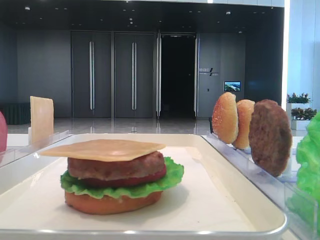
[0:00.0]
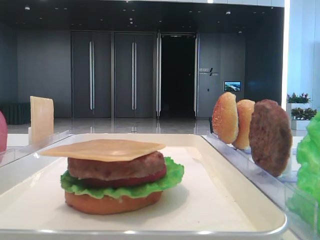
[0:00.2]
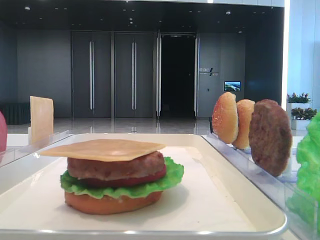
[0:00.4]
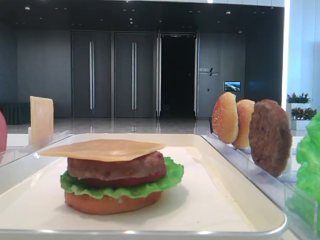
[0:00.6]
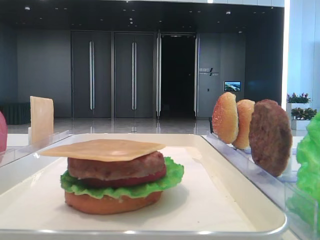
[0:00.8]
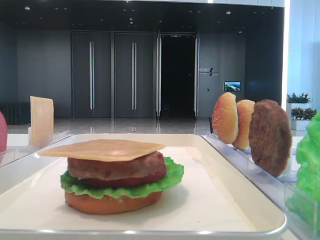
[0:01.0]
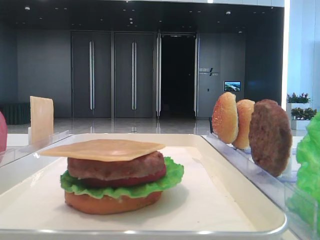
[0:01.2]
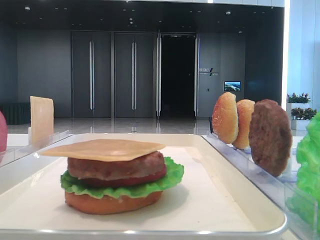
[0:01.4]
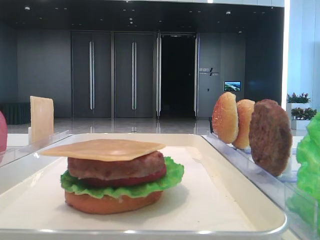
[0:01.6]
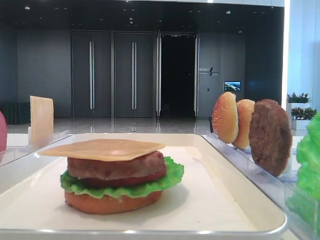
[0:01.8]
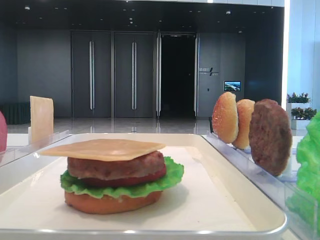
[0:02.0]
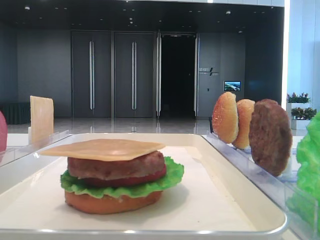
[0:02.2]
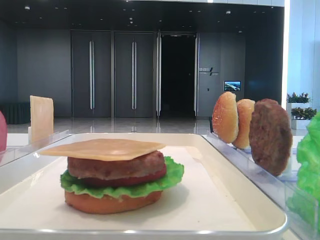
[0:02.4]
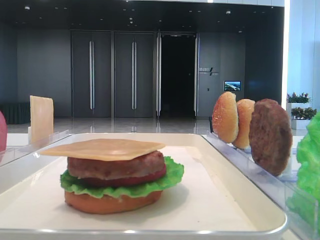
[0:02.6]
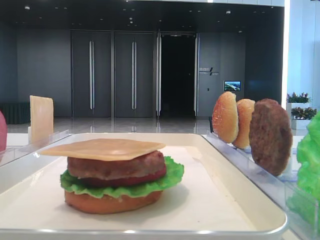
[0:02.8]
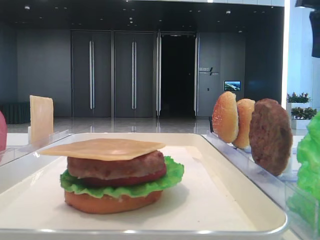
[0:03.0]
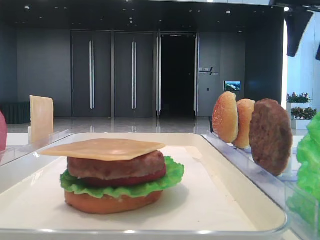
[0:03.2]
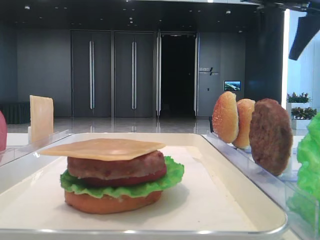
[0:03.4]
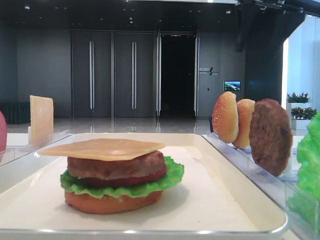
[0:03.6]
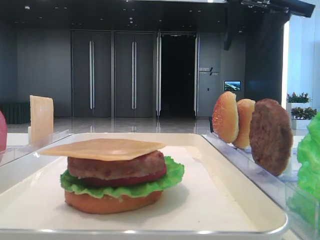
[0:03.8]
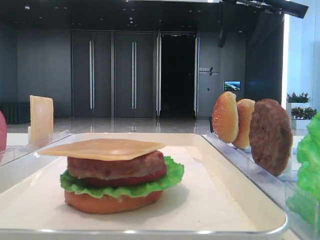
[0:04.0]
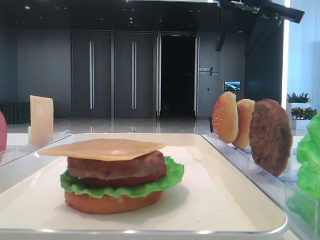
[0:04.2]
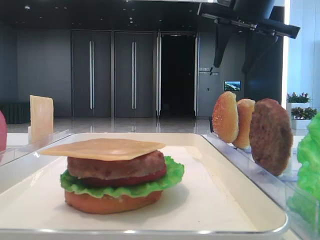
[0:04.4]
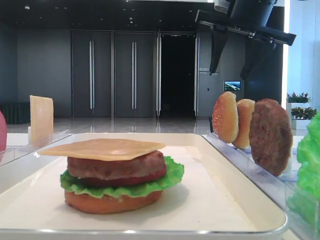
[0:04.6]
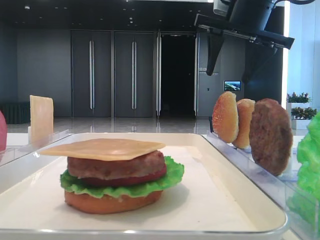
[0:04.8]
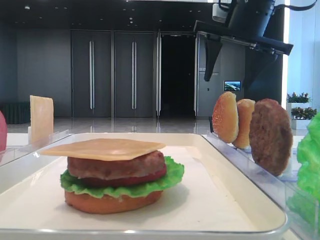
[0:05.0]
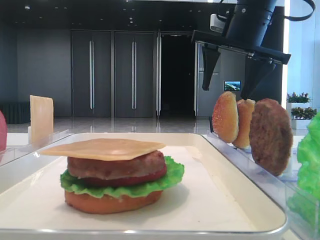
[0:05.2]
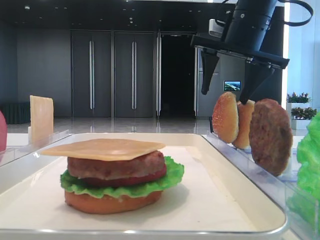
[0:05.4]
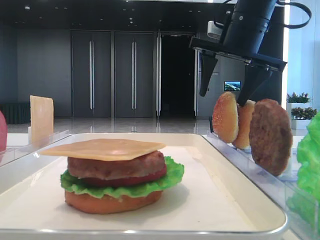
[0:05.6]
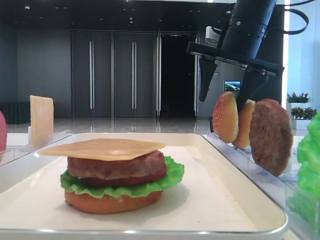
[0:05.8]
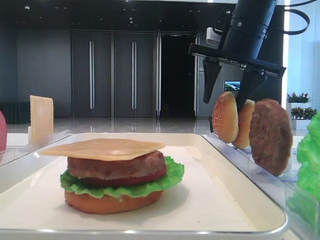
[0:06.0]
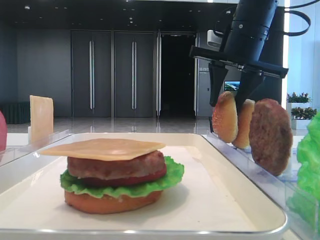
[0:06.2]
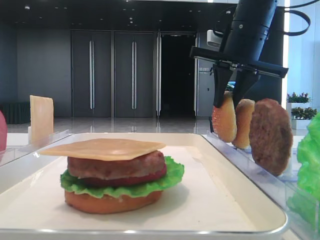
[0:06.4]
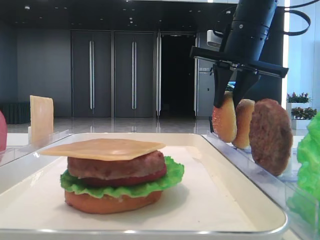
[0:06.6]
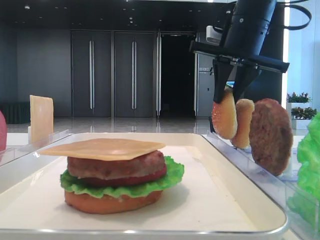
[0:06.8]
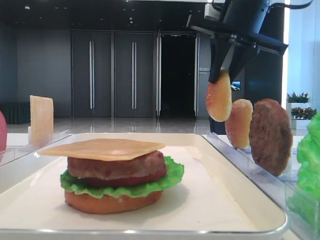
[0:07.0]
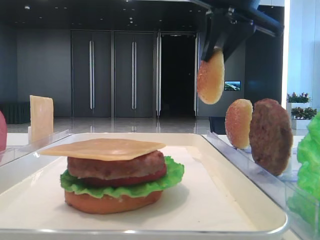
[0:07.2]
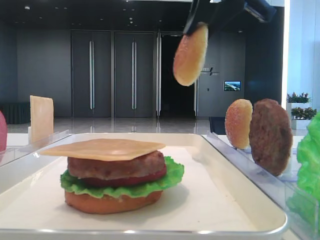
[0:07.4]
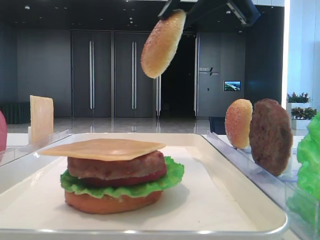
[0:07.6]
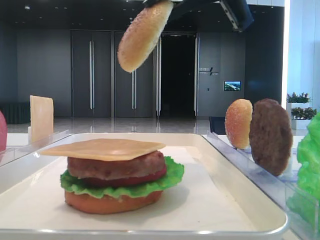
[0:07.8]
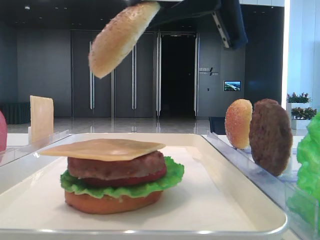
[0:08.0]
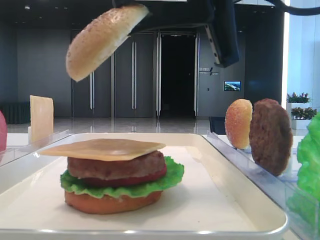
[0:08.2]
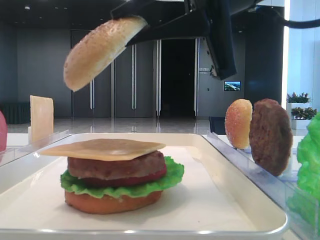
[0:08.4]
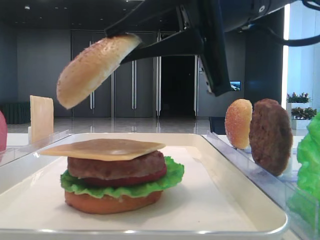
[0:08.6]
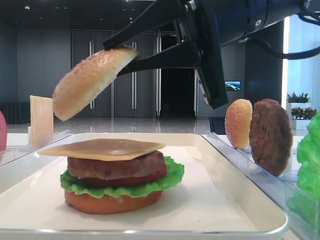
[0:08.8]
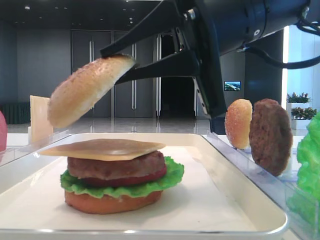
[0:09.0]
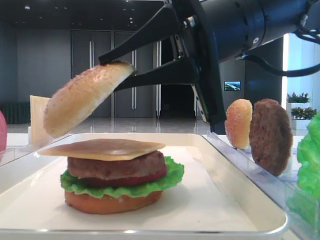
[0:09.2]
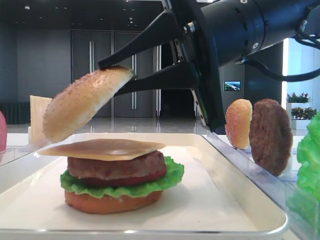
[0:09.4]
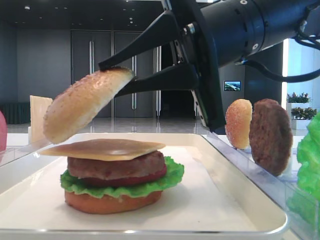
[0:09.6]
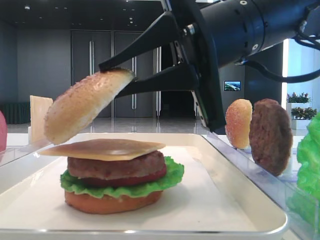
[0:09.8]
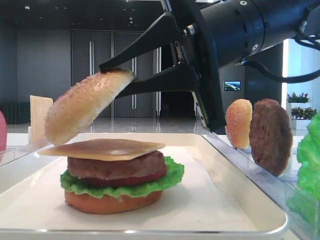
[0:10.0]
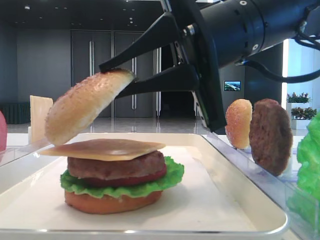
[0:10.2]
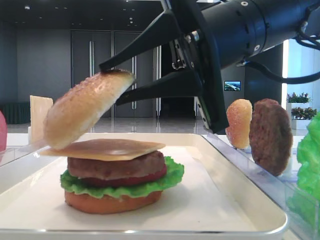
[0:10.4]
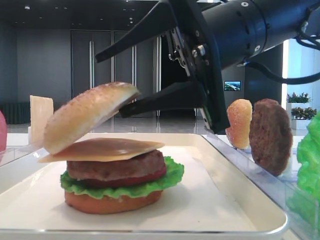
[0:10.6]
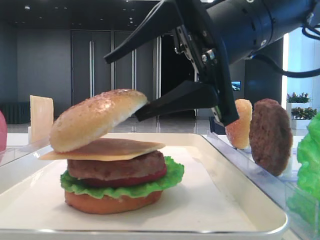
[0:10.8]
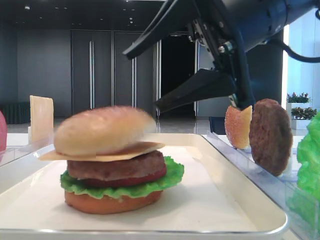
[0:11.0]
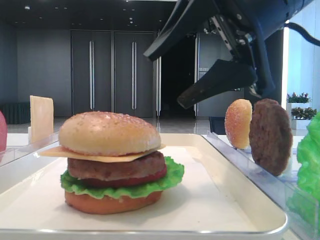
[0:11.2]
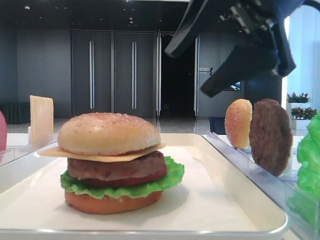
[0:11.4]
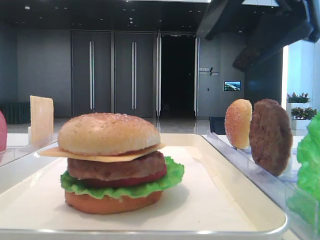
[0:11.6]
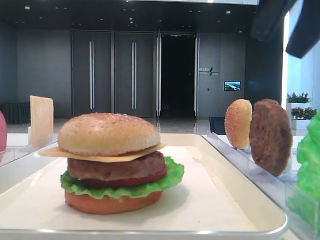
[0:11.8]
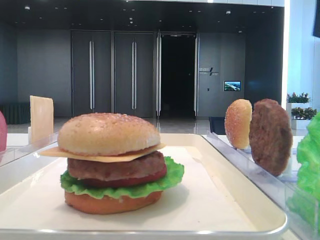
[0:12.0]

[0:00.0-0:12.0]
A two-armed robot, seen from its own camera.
Step, 0:00.0 to 0:06.4: Pick up the top bread slice with the right hand.
Step, 0:06.8 to 0:11.0: Place the top bread slice on the cheese with the right hand.
0:01.6 to 0:03.0: The right gripper heads forward, covering roughly 25 cm.
0:03.0 to 0:04.4: The right gripper moves to the left, approximately 15 cm.
0:04.4 to 0:06.0: The right gripper shifts about 5 cm downward.
0:06.0 to 0:07.6: The right gripper heads backward and upward, covering some 15 cm, and closes its fingers.
0:07.6 to 0:09.0: The right gripper shifts some 15 cm downward and backward.
0:09.0 to 0:10.4: Both grippers stay about where they are.
0:10.4 to 0:12.0: The right gripper is displaced to the right and upward by some 20 cm, and opens.

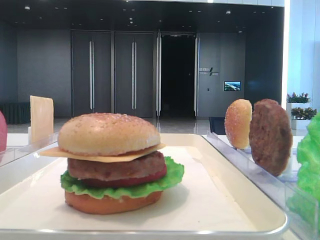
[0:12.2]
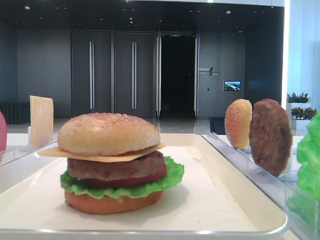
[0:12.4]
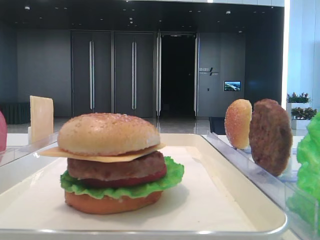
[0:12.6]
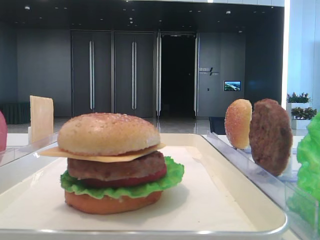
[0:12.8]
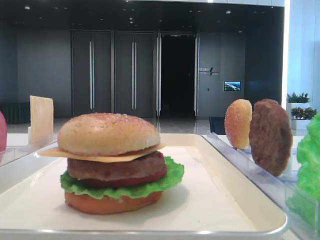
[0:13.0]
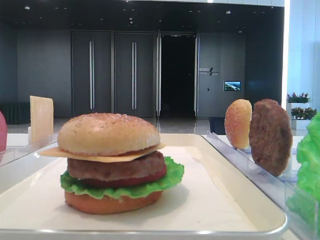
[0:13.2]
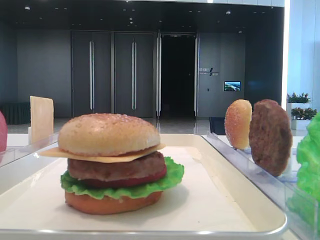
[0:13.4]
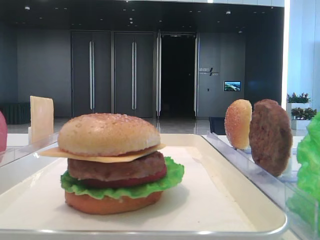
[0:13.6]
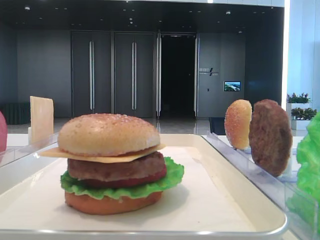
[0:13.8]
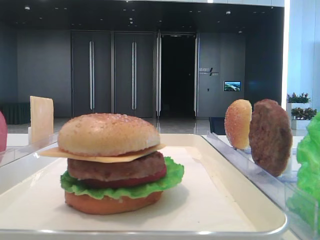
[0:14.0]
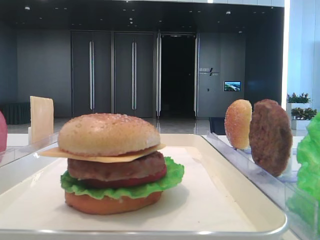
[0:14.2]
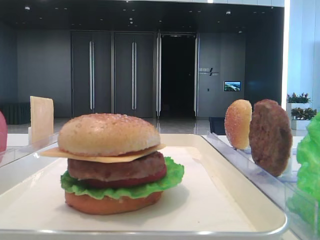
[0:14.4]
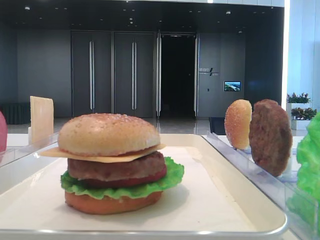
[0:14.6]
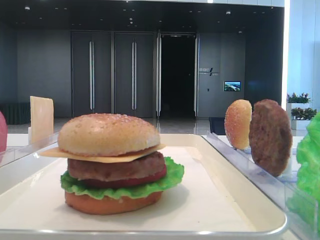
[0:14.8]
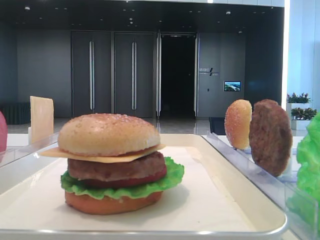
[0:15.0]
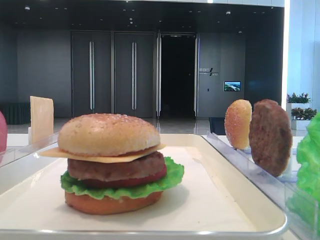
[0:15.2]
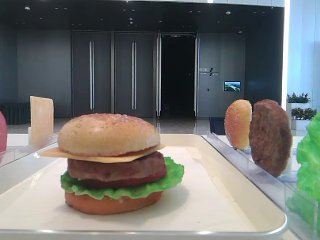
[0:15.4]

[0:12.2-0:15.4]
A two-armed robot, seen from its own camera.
0:12.2 to 0:13.8: The right gripper goes roughly 20 cm backward.

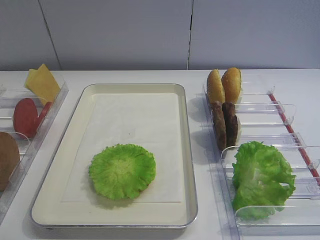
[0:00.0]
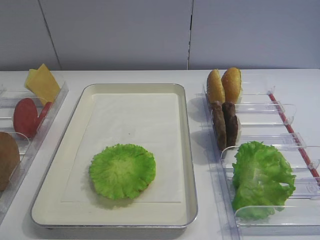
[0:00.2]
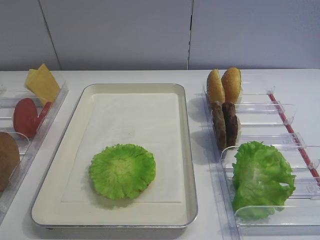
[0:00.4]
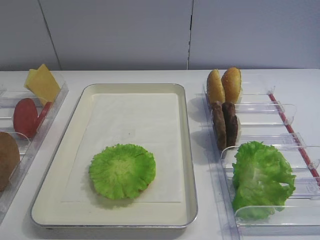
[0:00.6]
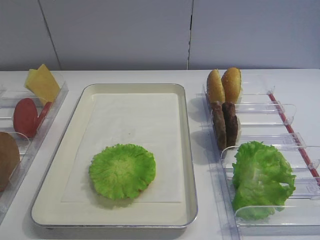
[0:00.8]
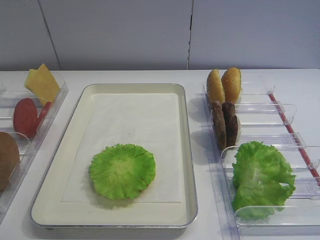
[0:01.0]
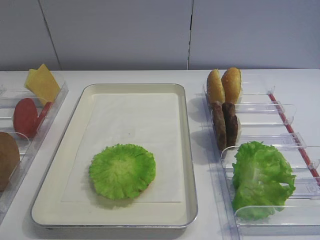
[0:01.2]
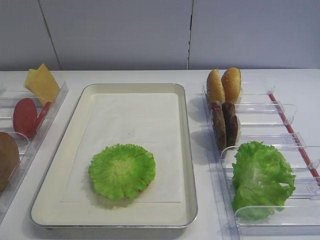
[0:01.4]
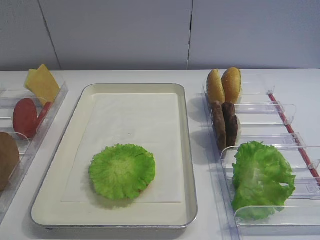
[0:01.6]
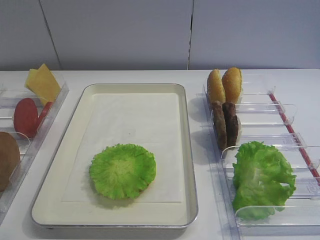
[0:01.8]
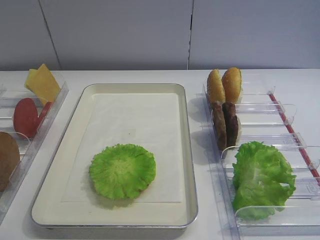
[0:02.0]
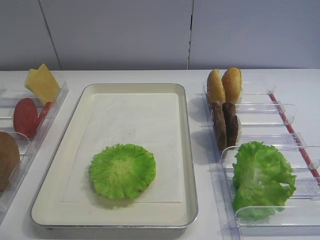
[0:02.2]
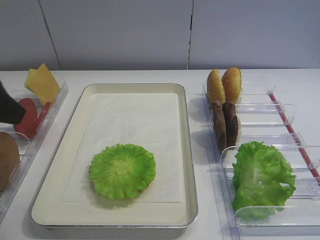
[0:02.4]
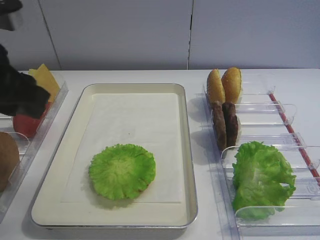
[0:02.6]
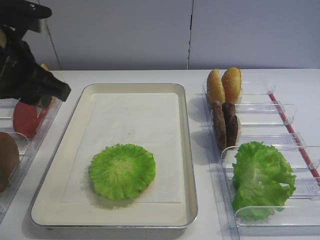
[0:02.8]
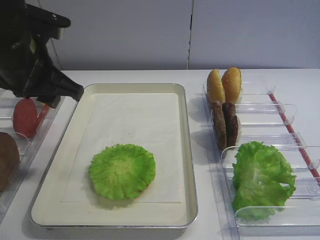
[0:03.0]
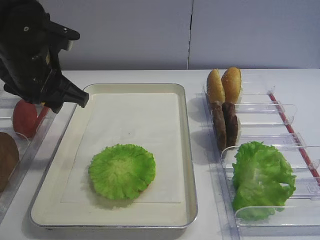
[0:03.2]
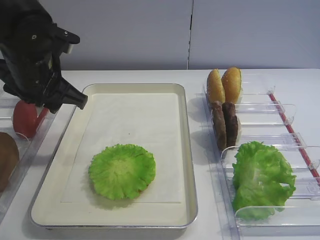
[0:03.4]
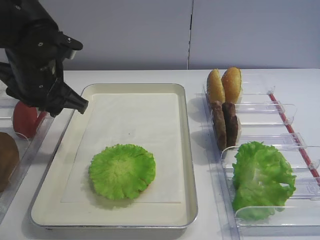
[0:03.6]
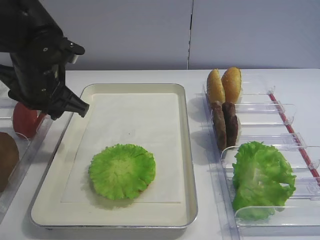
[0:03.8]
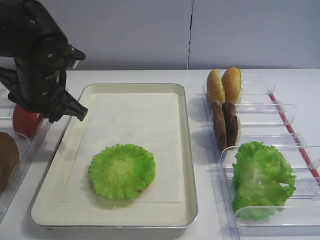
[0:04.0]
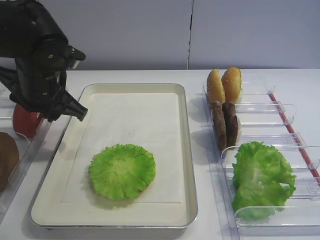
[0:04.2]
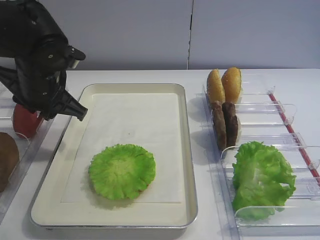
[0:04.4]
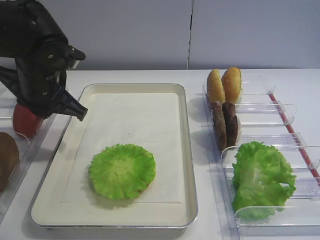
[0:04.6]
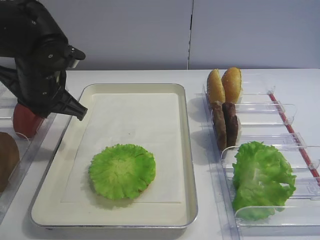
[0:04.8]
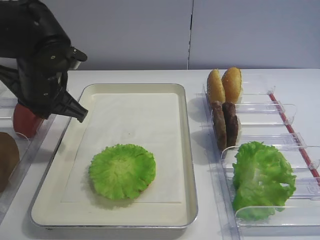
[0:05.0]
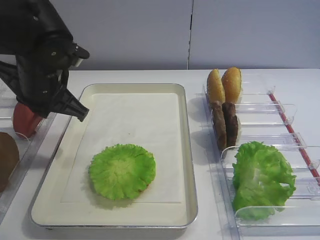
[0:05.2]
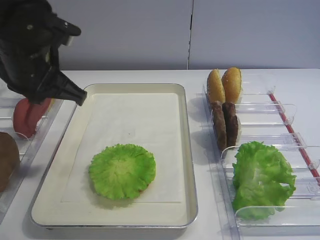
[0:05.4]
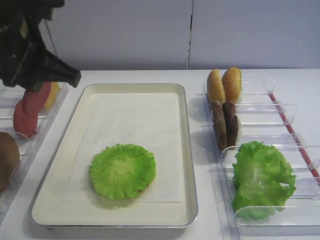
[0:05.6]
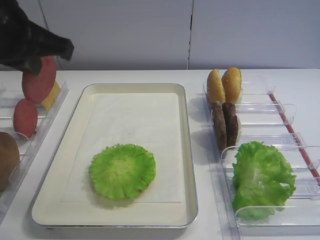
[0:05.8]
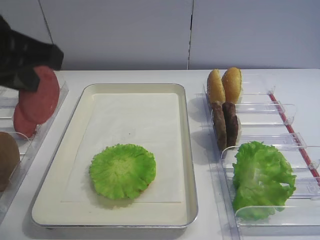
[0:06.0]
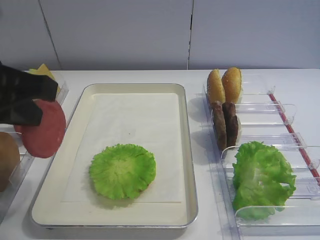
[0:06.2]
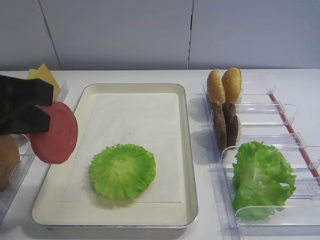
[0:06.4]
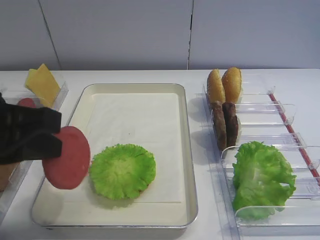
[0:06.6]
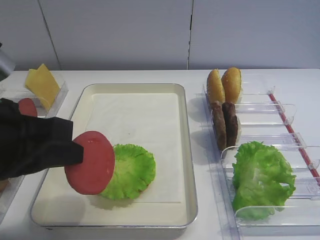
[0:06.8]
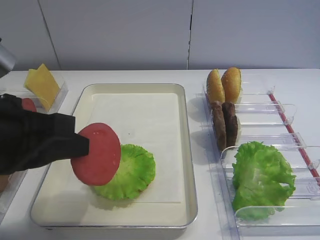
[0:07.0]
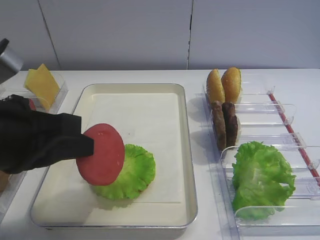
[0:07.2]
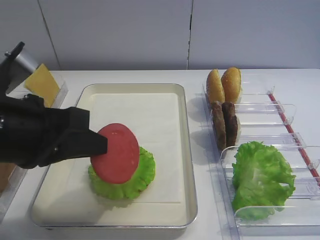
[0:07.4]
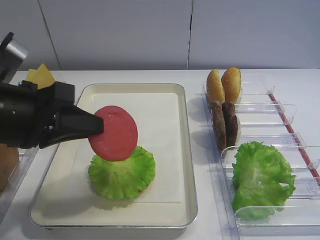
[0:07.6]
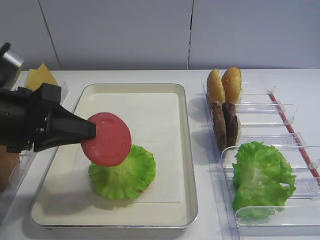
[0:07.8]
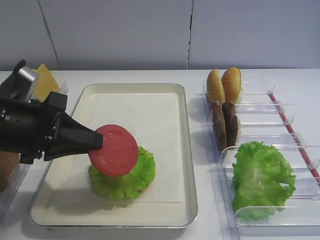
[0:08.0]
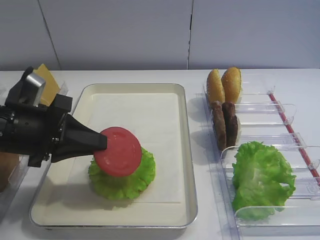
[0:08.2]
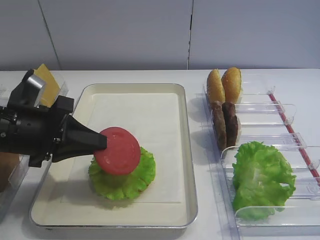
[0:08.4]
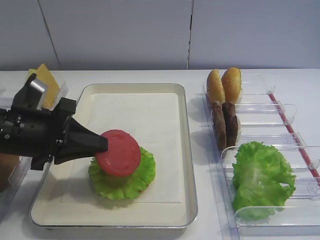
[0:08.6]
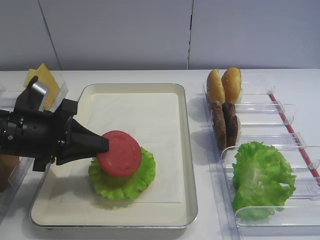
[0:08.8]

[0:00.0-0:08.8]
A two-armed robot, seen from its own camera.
Step, 0:00.0 to 0:05.6: Pick up the tomato slice with the left gripper.
0:01.4 to 0:03.0: The left gripper moves forward, about 30 cm.
0:03.0 to 0:04.4: The left gripper goes about 5 cm downward.
0:04.4 to 0:05.8: The left gripper goes roughly 15 cm upward and backward, and closes its fingers.
0:05.8 to 0:07.4: The left gripper goes some 10 cm downward and backward.
0:07.4 to 0:08.8: The left gripper moves downward and forward, about 10 cm.
